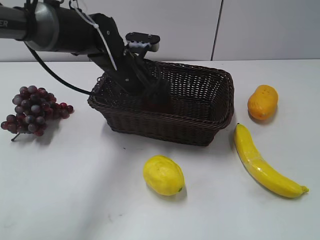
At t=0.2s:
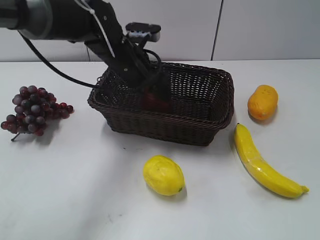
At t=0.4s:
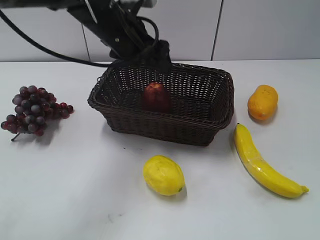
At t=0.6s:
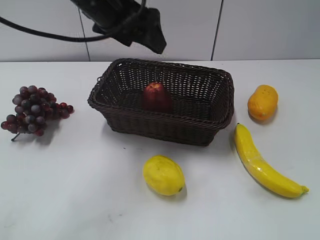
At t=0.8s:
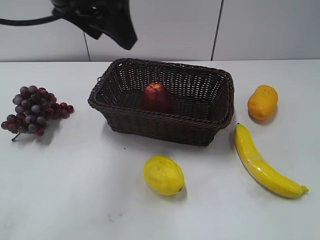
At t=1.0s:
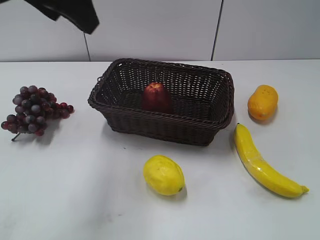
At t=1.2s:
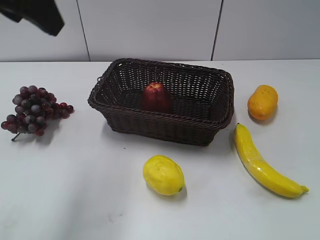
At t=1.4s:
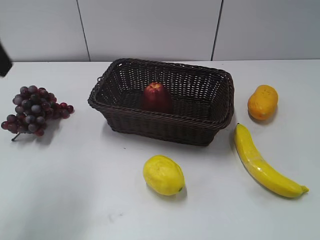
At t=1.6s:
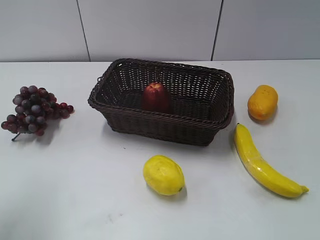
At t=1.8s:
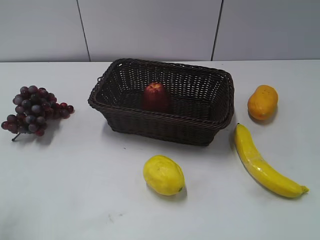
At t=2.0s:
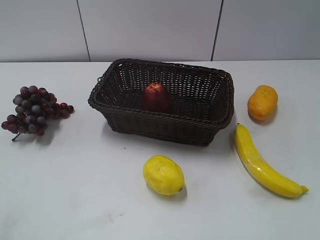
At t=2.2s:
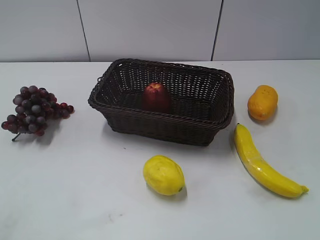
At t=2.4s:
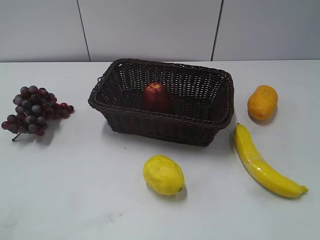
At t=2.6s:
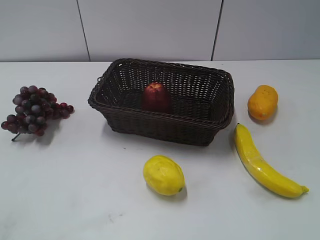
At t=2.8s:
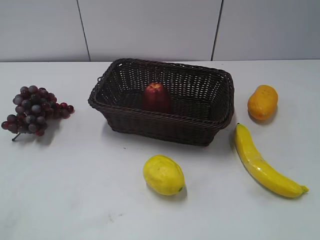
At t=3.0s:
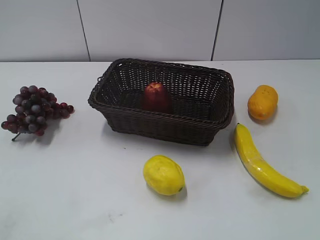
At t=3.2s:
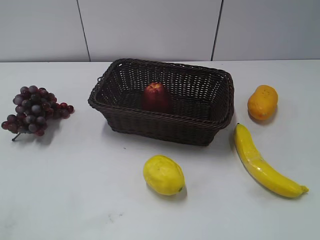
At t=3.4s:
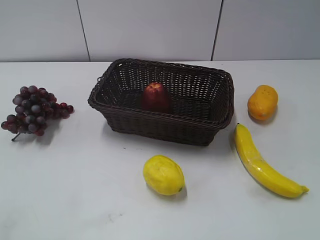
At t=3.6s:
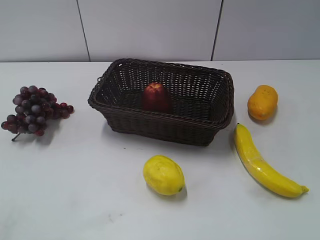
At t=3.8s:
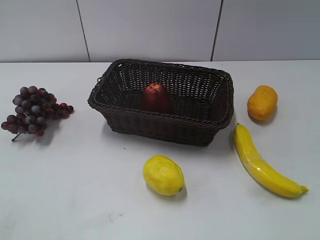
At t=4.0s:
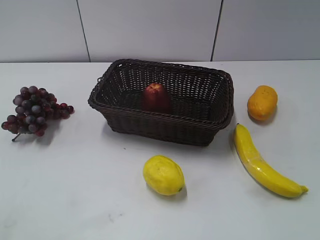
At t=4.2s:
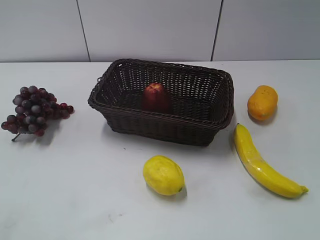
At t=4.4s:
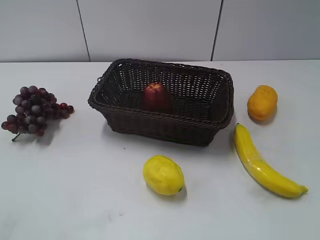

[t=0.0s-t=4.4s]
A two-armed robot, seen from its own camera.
t=0.0s to t=1.4s: The left gripper shifts some 30 cm upward, backward and to the left.
t=1.4s to t=3.0s: The left gripper moves backward, downward and to the left, about 25 cm.
